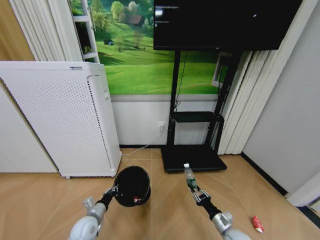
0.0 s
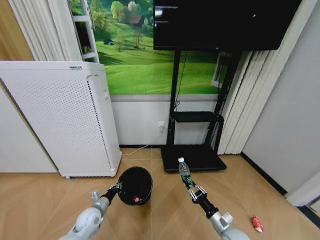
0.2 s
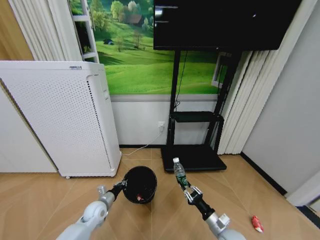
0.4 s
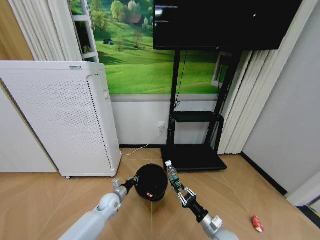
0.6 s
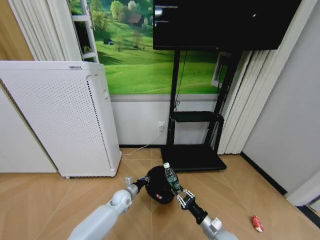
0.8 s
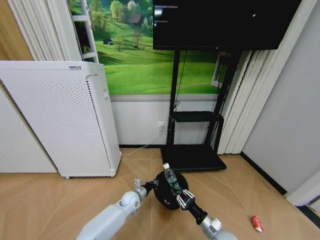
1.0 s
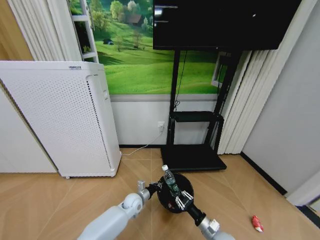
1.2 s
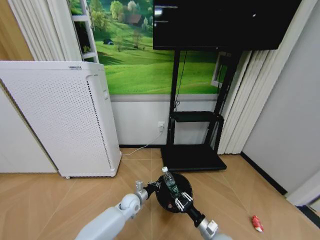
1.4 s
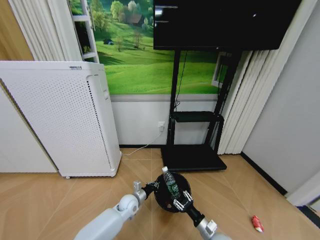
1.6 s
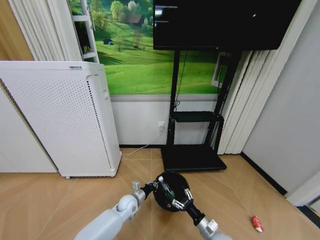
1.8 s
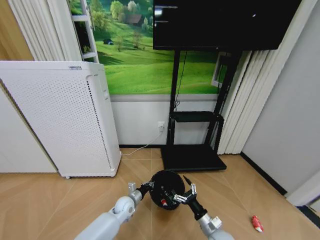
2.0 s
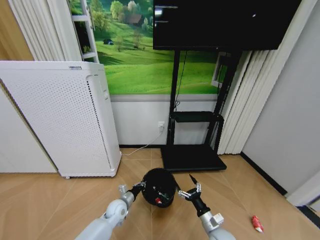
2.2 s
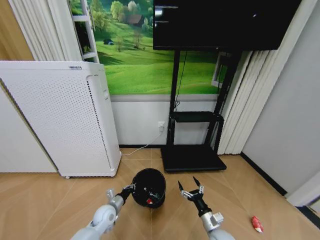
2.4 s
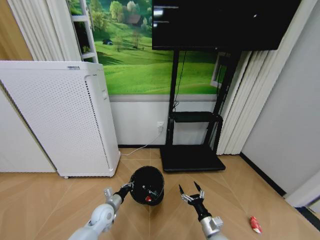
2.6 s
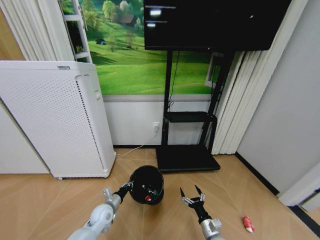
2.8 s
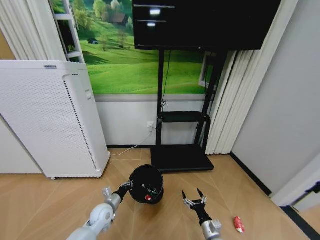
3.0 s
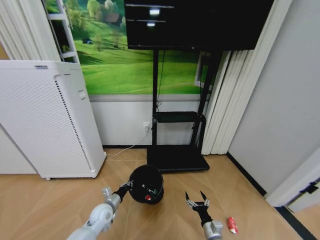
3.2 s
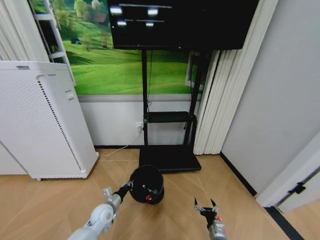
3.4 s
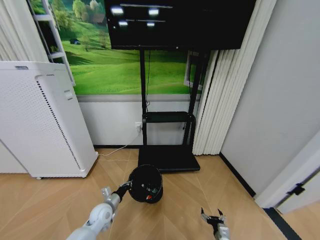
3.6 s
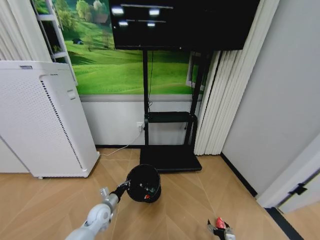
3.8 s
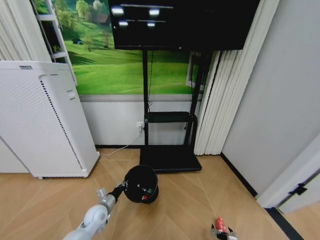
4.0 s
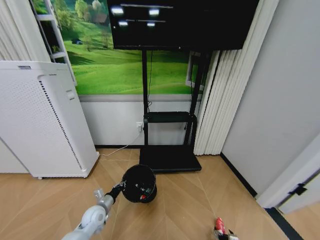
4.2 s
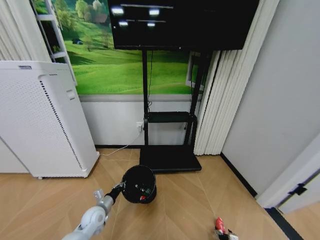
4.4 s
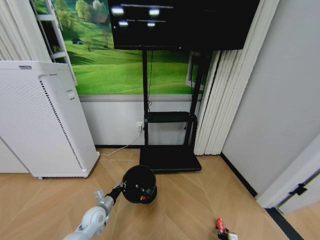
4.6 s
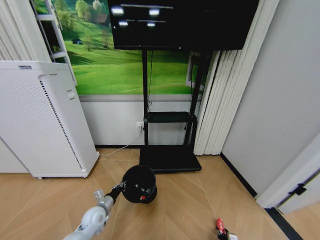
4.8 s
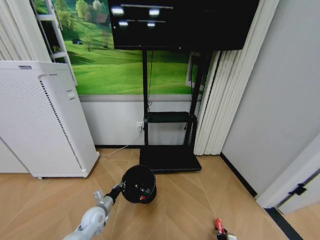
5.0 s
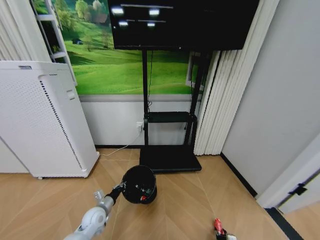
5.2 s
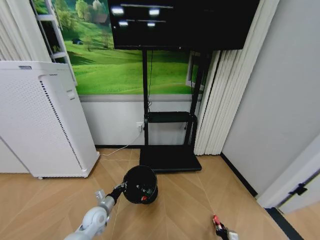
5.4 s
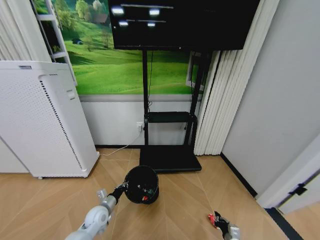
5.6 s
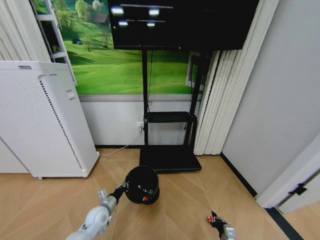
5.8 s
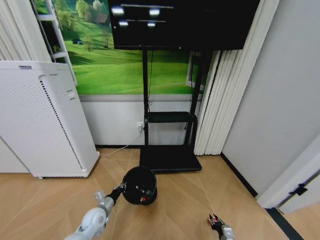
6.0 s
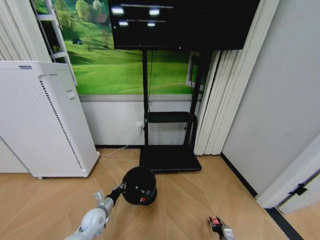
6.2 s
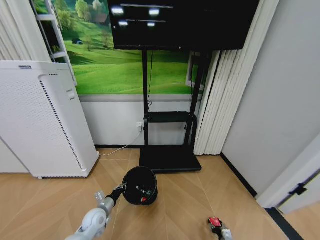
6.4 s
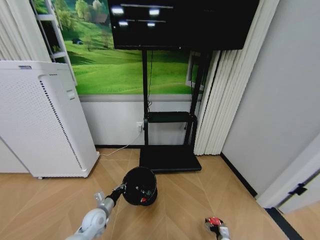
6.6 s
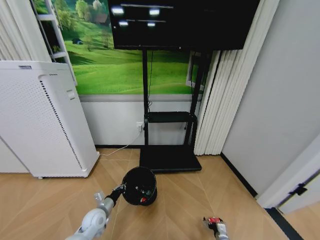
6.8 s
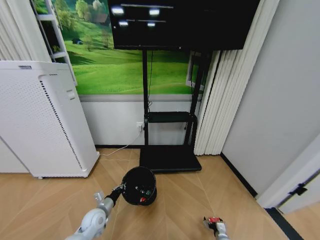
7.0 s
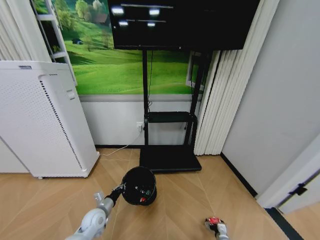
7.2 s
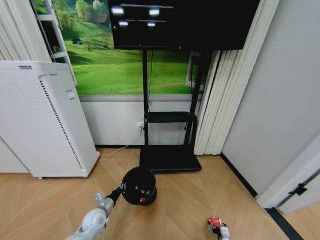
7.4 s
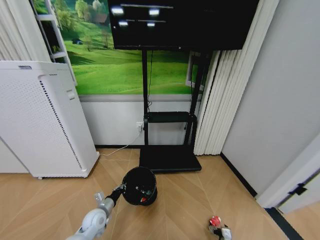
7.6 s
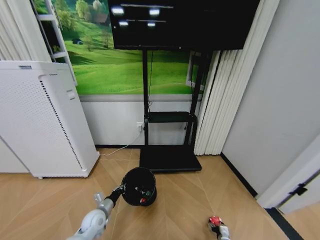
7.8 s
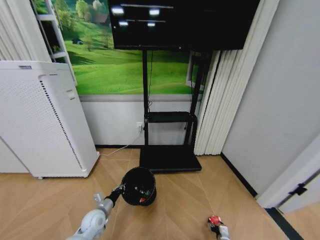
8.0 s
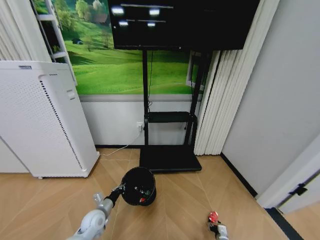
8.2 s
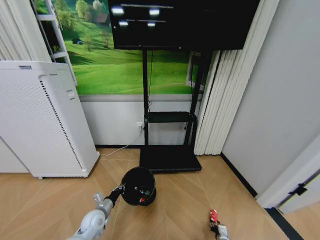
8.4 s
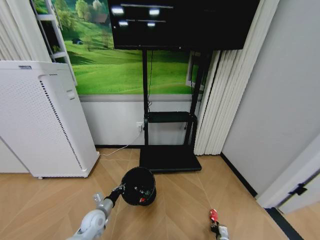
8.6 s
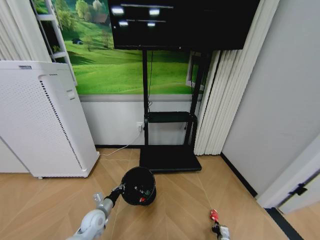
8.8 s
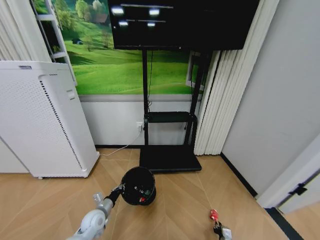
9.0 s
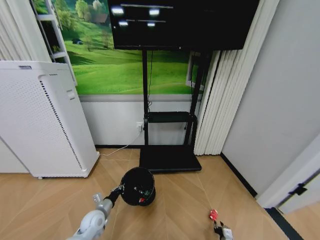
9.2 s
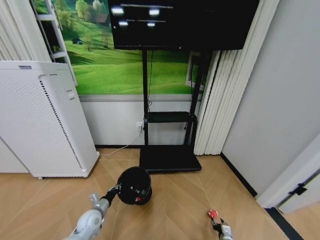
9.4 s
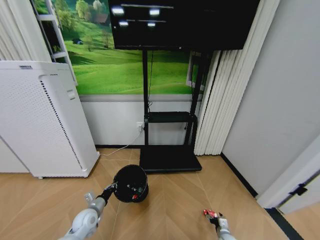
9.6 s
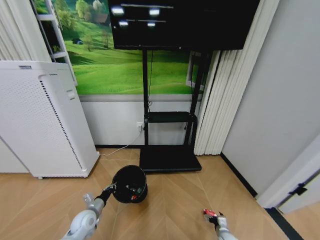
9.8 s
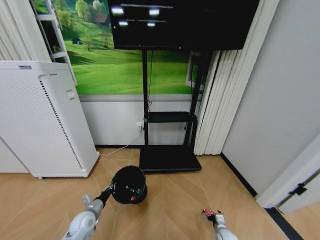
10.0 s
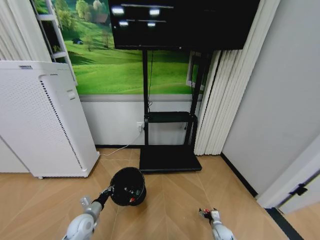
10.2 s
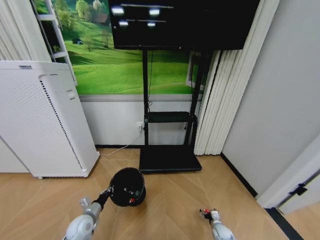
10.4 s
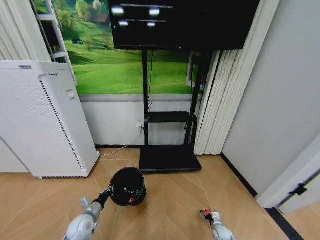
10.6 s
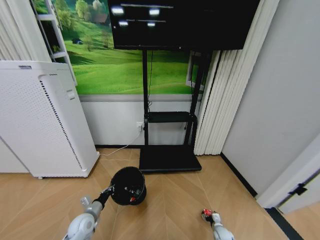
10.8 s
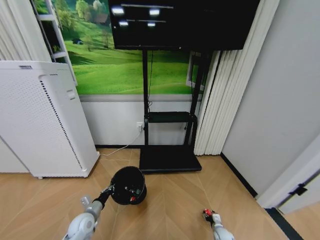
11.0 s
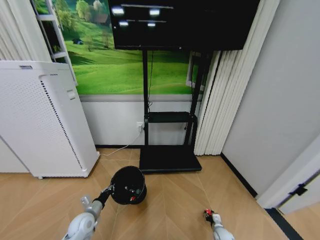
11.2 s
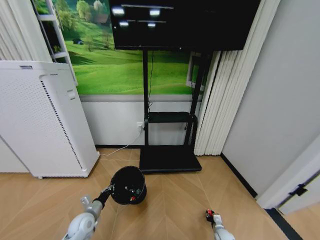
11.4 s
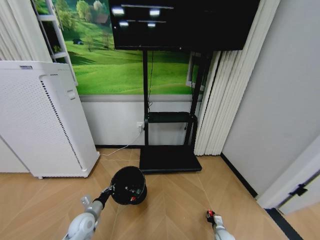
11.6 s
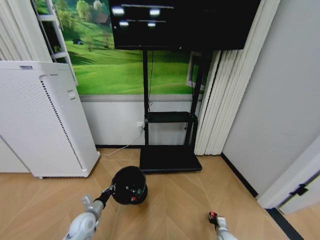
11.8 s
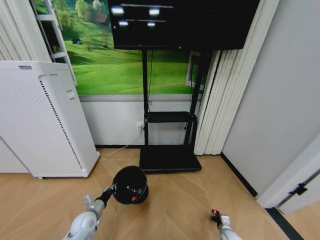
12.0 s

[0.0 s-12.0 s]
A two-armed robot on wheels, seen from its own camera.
Task of the whole recording: Pick up the trash bin and place the garbage on the floor into it.
0.0 to 1.6 s: The left gripper goes some 20 cm to the right and forward. The right gripper travels to the left by approximately 5 cm.
1.6 to 3.0 s: The right gripper opens; the left gripper heads to the left and backward, covering about 15 cm.
3.0 to 4.4 s: The right gripper is displaced to the right and downward by approximately 20 cm.
4.4 to 6.0 s: The right gripper ends up approximately 5 cm from where it was, and closes up.
6.0 to 7.6 s: The right gripper is displaced downward by roughly 5 cm, and opens its fingers.
9.0 to 10.4 s: The left gripper ends up approximately 5 cm from where it was; the right gripper travels forward by some 10 cm, and opens its fingers.
10.4 to 12.0 s: The right gripper closes.

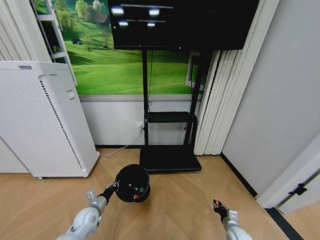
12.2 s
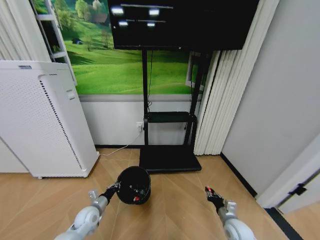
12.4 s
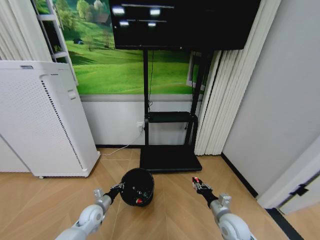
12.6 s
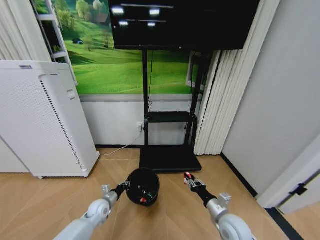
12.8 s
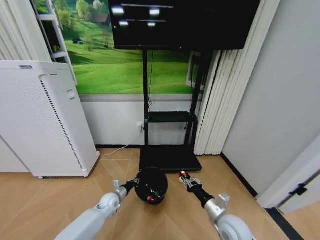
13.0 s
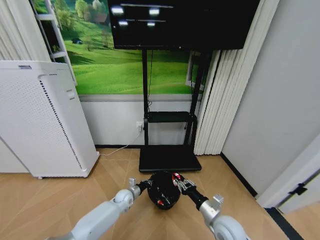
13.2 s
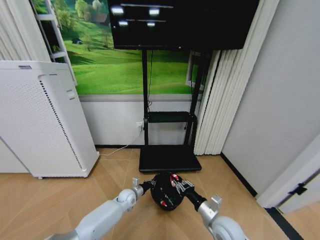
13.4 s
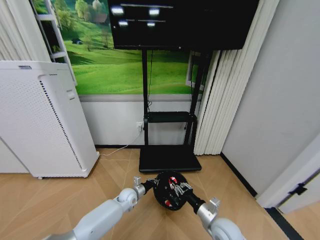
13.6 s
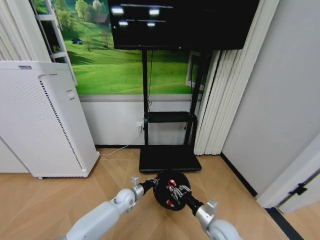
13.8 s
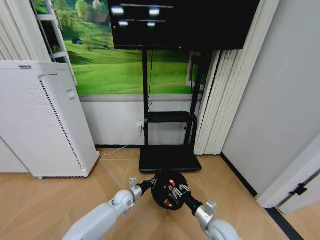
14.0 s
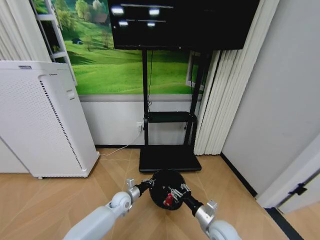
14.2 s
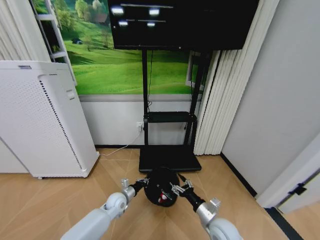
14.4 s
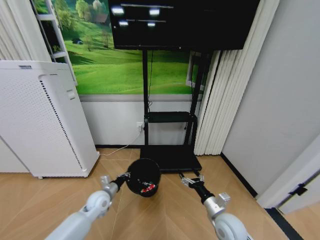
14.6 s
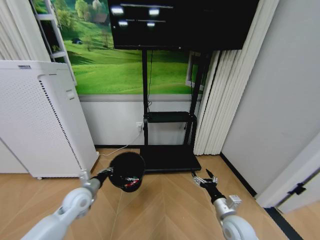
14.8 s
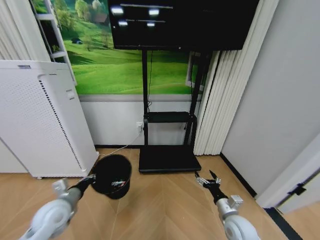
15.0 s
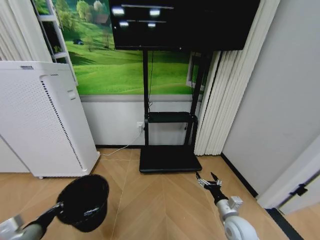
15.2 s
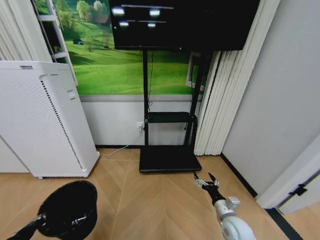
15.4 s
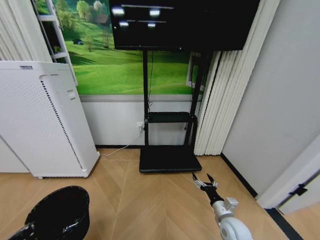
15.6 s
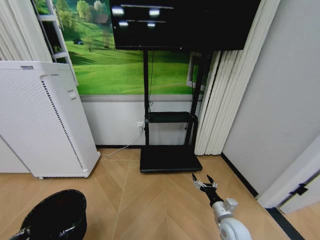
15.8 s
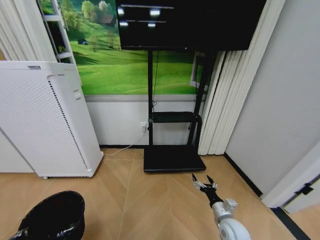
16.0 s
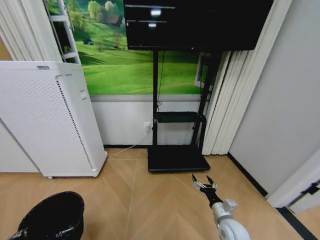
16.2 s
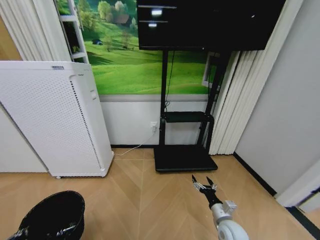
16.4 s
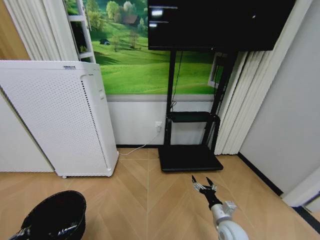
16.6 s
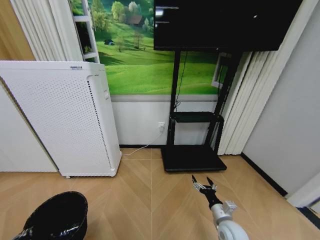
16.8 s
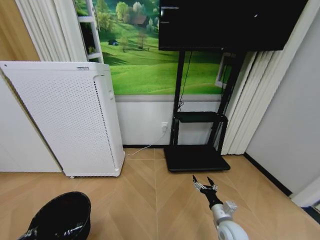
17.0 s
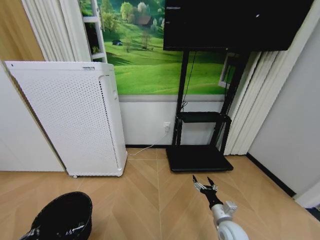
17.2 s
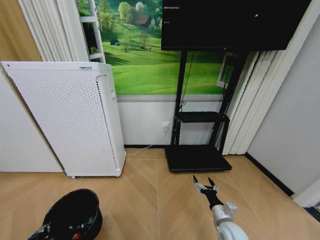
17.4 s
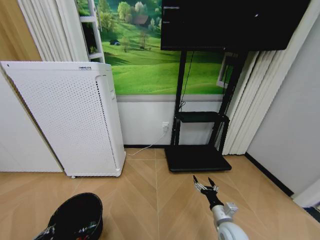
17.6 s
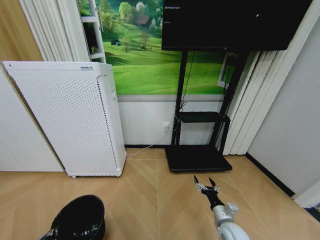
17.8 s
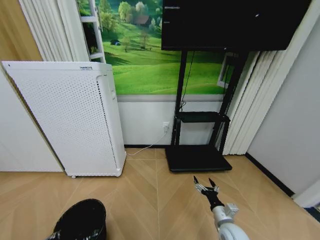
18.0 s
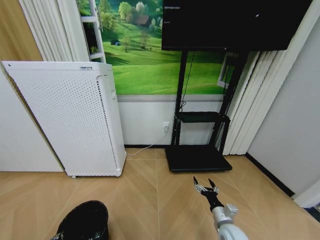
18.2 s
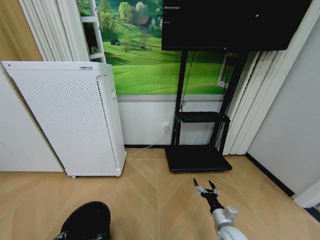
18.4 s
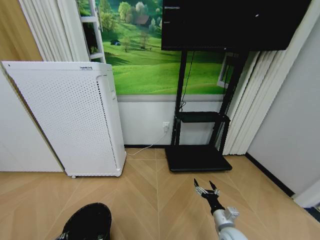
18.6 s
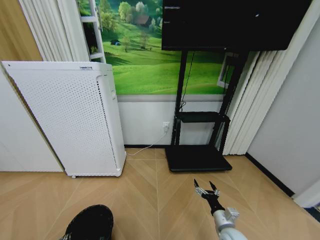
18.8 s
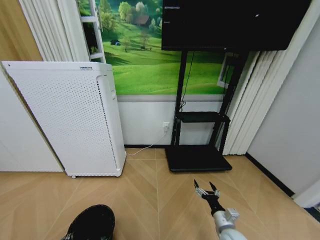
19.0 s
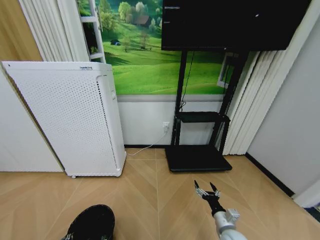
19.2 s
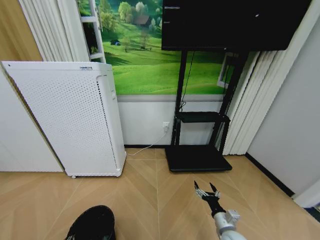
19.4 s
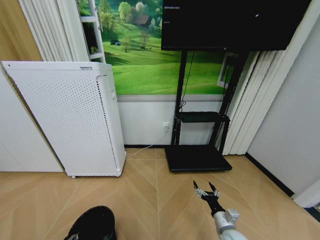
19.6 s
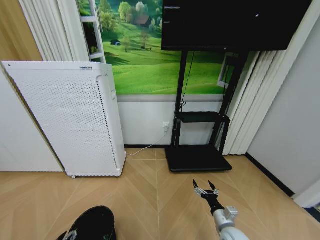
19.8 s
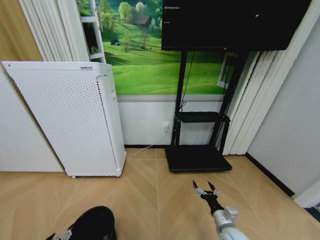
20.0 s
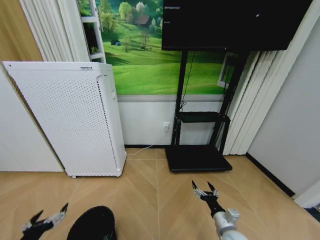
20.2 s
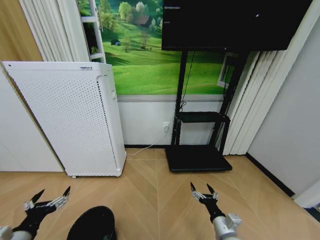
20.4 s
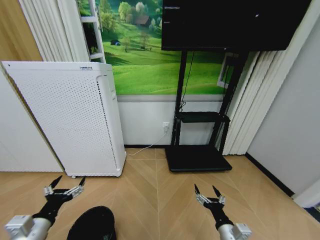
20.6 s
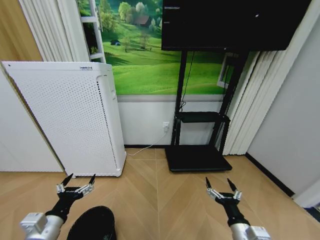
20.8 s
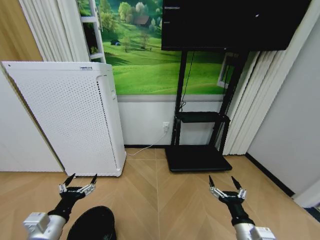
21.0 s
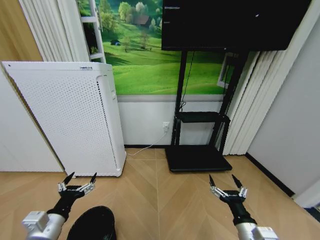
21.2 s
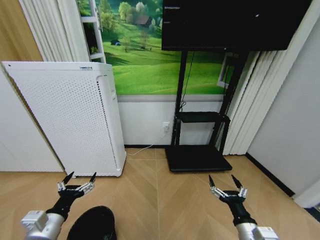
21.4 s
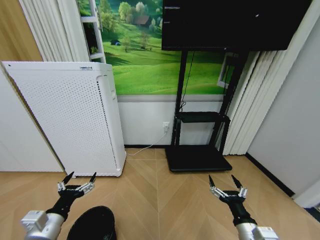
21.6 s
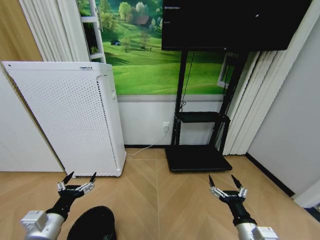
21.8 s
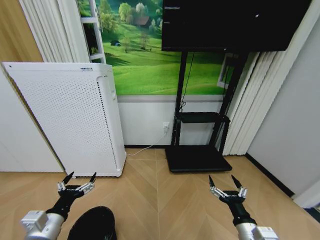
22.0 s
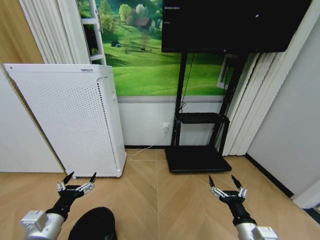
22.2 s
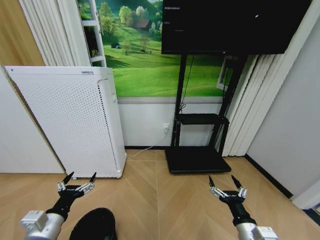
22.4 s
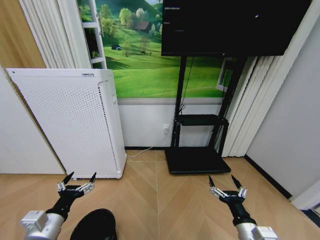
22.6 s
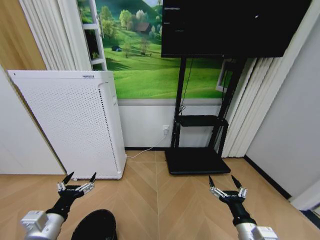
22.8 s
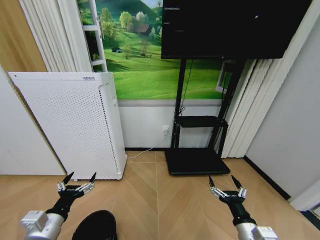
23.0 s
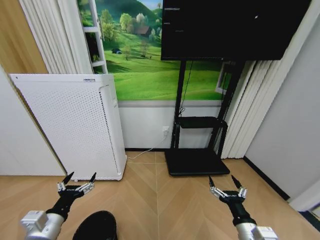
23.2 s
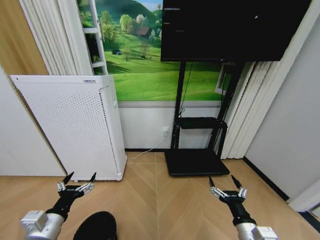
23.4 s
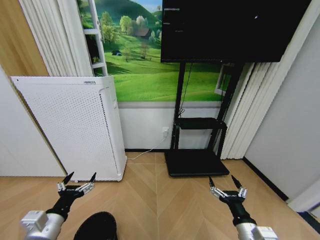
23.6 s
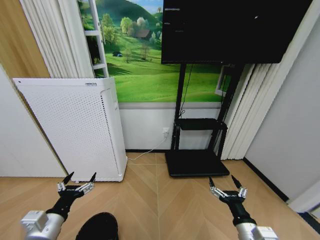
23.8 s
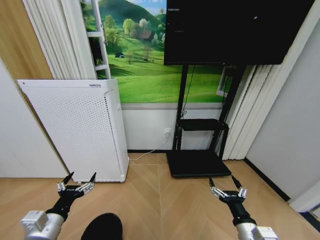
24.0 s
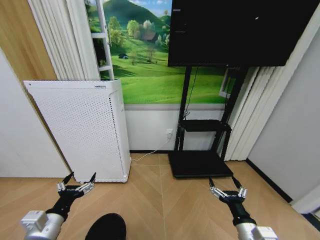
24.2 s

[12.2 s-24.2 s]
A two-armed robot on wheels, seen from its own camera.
Task of the whole recording: Pick up the trash bin and place the garbage on the floor into it.
12.2 to 13.8 s: The right gripper moves upward and to the left, roughly 20 cm. The left gripper is displaced to the right and forward by approximately 20 cm.
13.8 to 15.2 s: The right gripper is displaced to the right by roughly 5 cm, and opens. Meanwhile the left gripper moves to the left, backward and upward, some 35 cm.
15.2 to 16.6 s: The left gripper shifts some 10 cm backward and to the left.
16.6 to 18.2 s: The left gripper goes some 10 cm downward.
18.2 to 19.8 s: The left gripper opens up.
19.8 to 21.2 s: The right gripper heads upward and backward, covering roughly 15 cm, while the left gripper goes about 15 cm upward, to the right and forward, and opens its fingers.
21.2 to 22.6 s: Neither gripper changes place.
